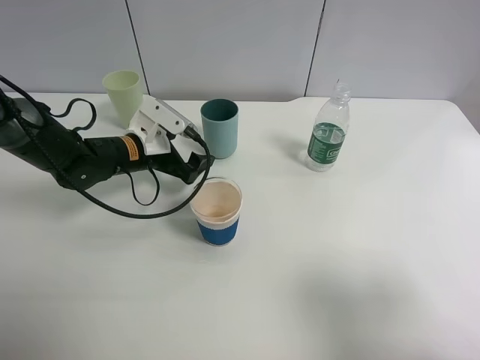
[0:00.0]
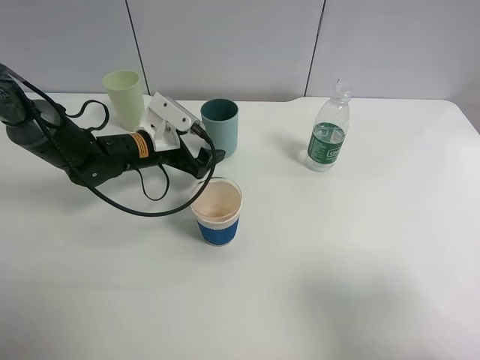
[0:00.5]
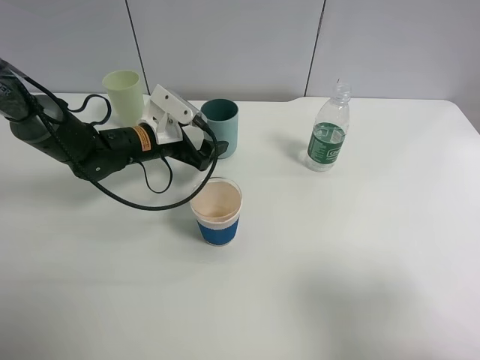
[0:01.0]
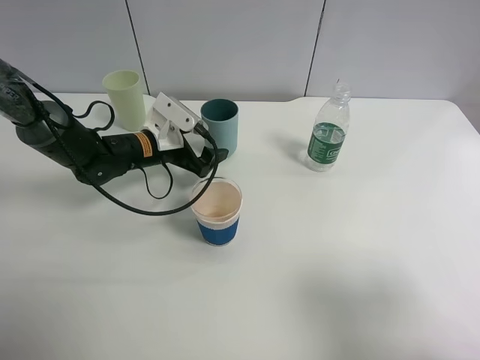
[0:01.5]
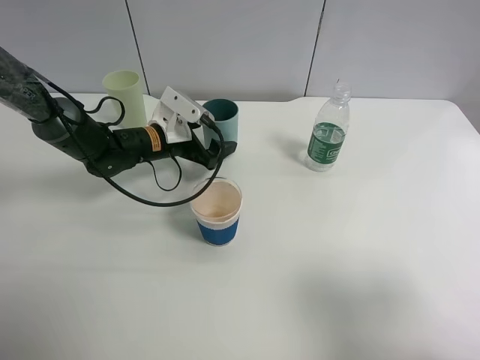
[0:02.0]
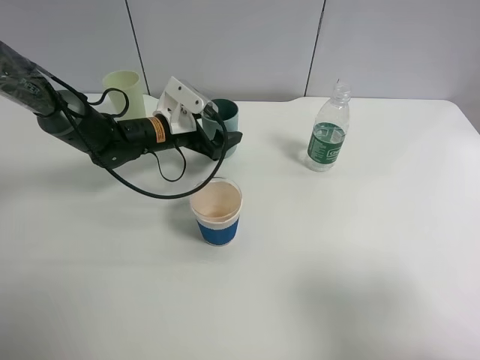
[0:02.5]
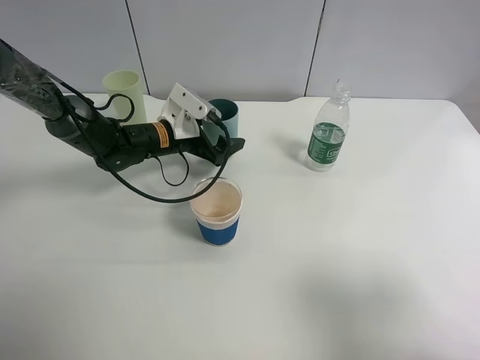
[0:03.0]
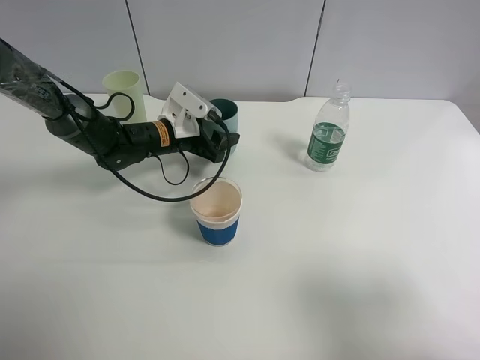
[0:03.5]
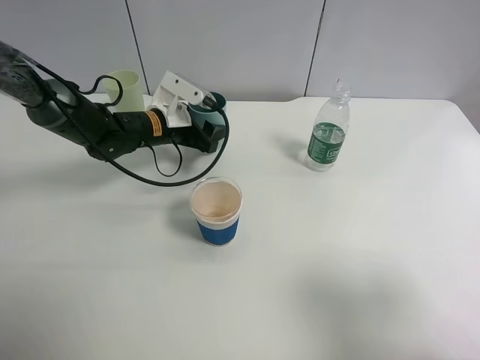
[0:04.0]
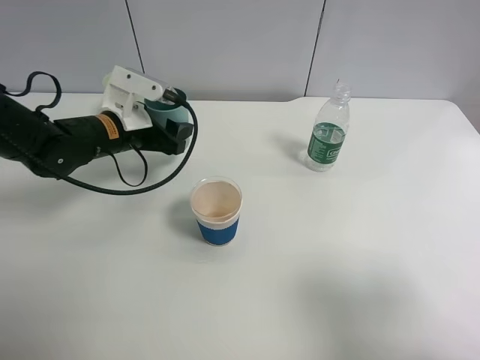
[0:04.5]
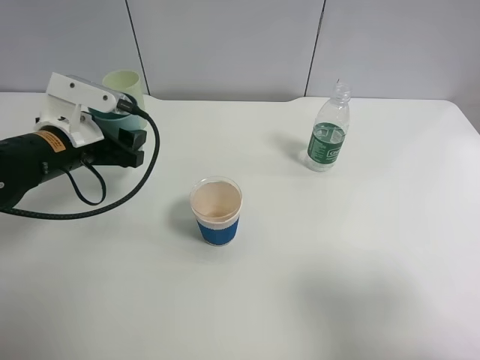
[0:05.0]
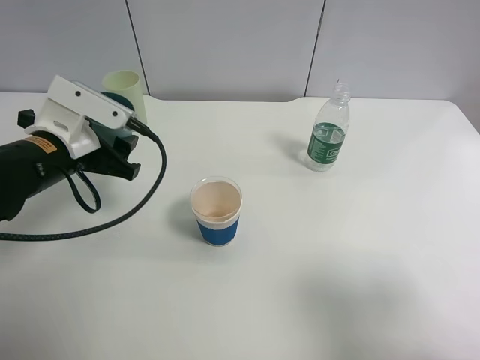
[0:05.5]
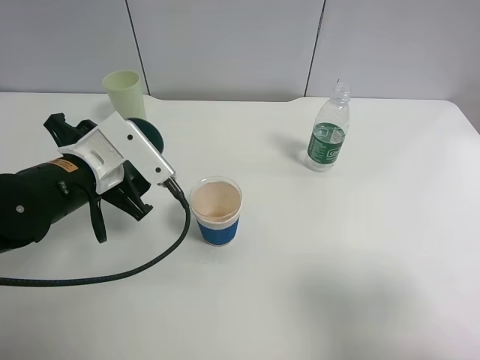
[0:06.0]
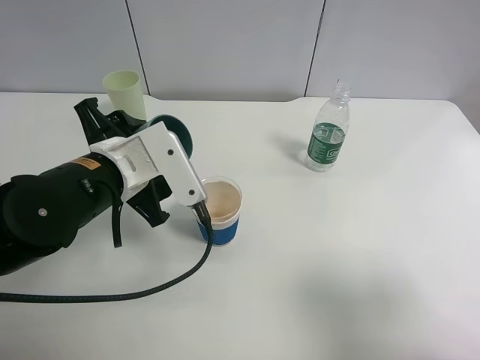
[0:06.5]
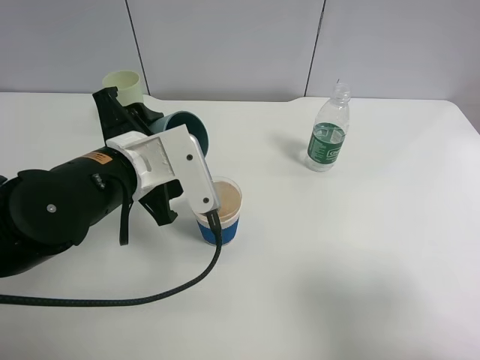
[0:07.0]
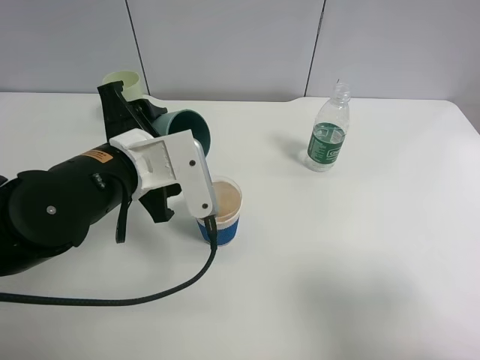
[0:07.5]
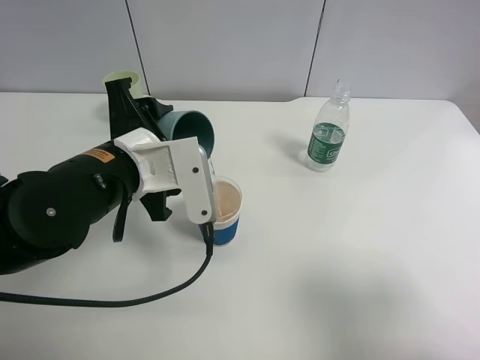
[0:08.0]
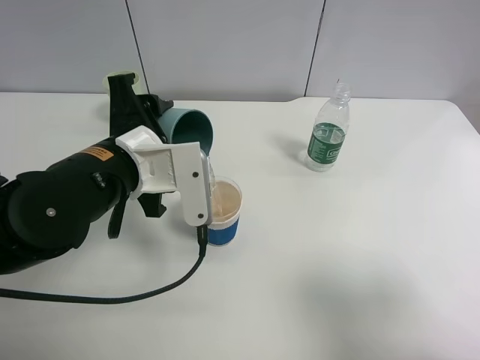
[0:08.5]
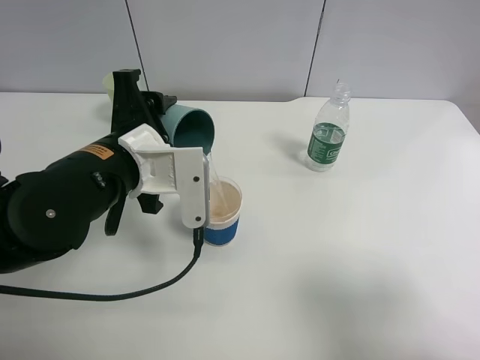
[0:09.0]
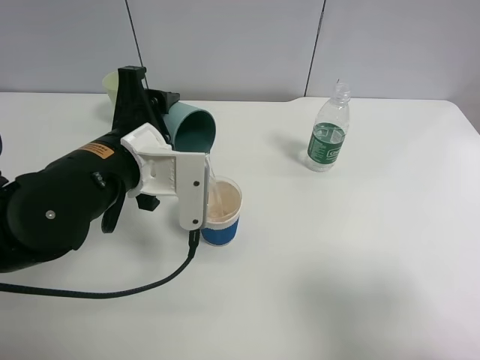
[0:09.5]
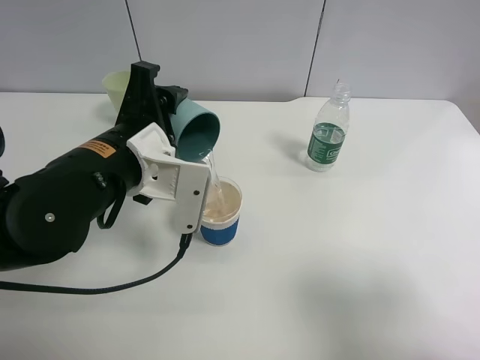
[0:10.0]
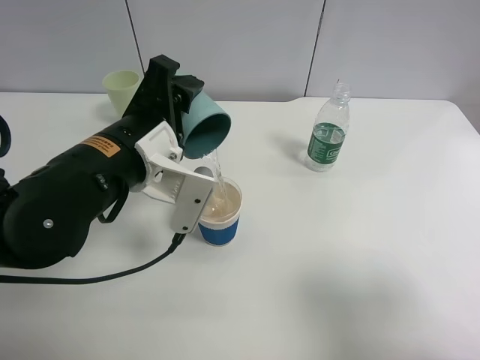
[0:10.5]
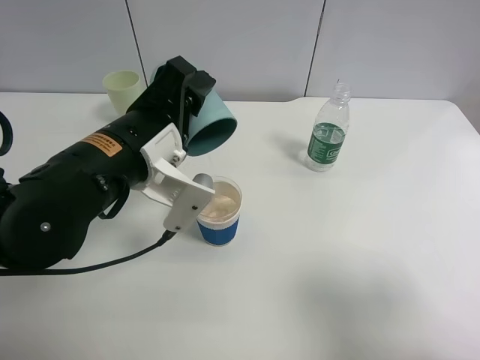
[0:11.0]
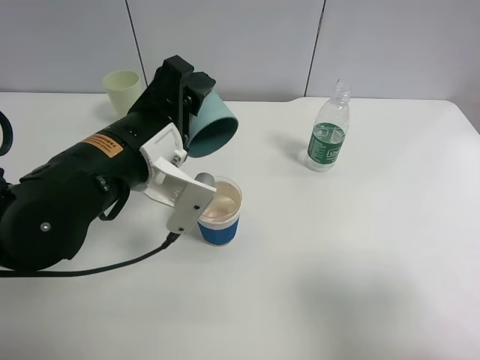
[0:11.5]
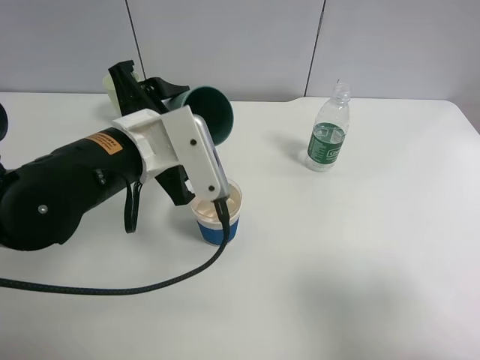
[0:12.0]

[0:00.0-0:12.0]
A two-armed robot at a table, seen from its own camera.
Task of the whole recording: use a clamp to hold the bottle of the drink, pour the beverage into a random cup, then clamp the cup containing the drink and pour the drink into another random cup.
Step, 0:00.0 to 0:04.0: Pick up the blue plastic cup bottle with left gripper.
Step, 0:04.5 to 0:11.5: Pour water into the paper cup with left gripper.
0:00.0 to 0:02.0: The grippers stay close to where they were, moving slightly.
0:02.0 to 0:04.0: The left gripper closes up.
0:04.0 to 0:06.0: The left gripper is displaced backward by about 20 cm.
0:06.0 to 0:08.0: The left gripper is displaced to the right by roughly 5 cm.

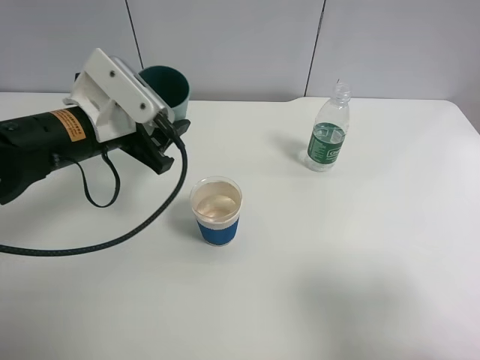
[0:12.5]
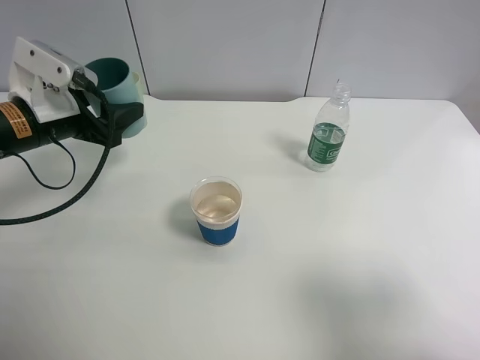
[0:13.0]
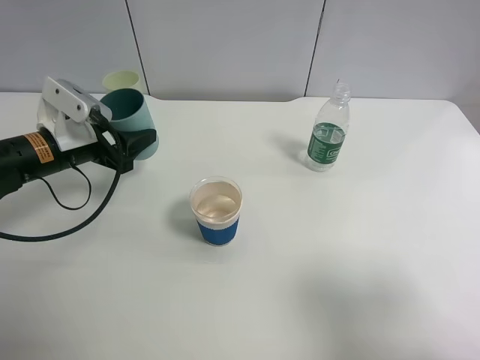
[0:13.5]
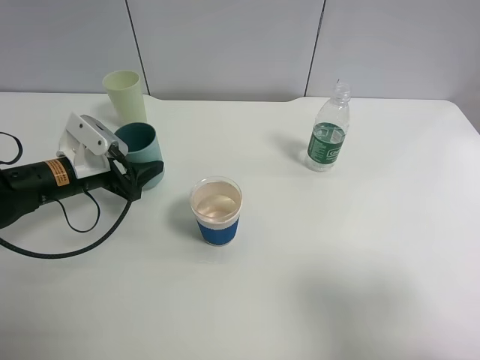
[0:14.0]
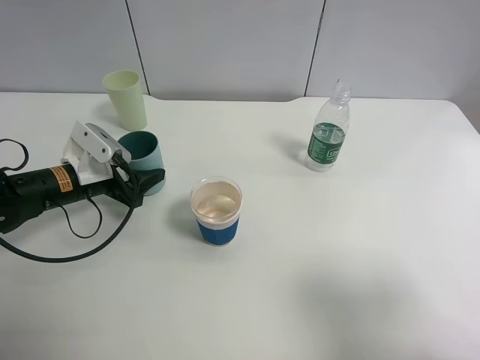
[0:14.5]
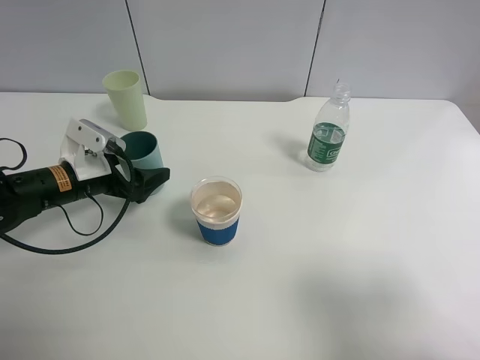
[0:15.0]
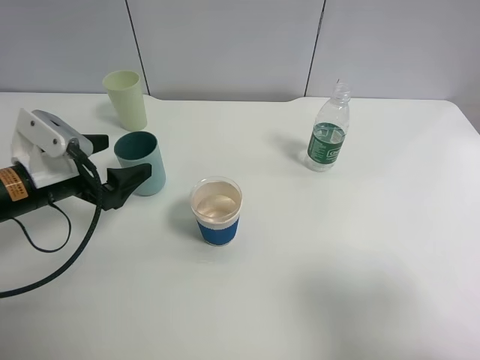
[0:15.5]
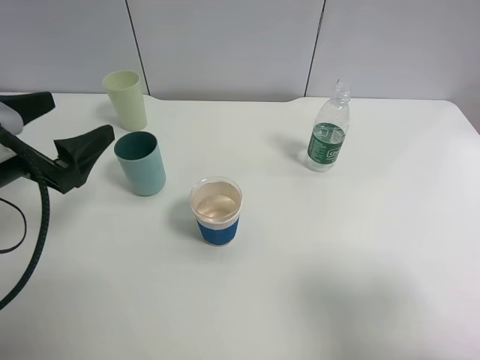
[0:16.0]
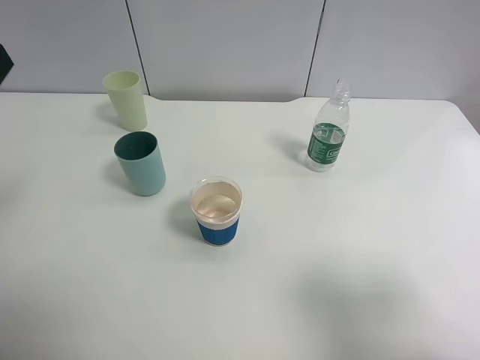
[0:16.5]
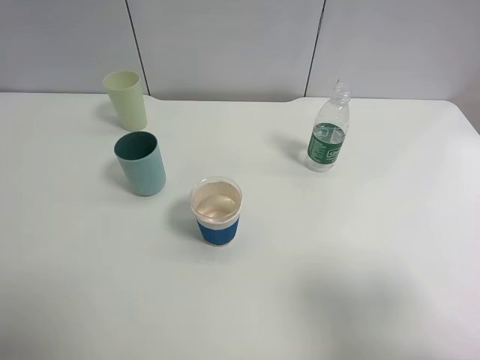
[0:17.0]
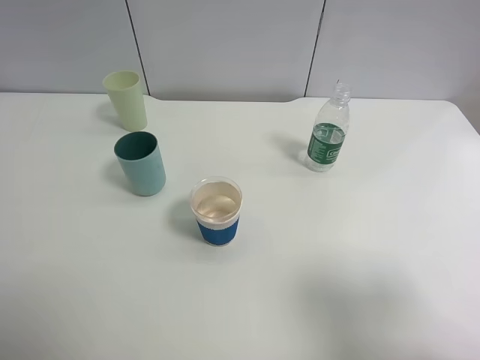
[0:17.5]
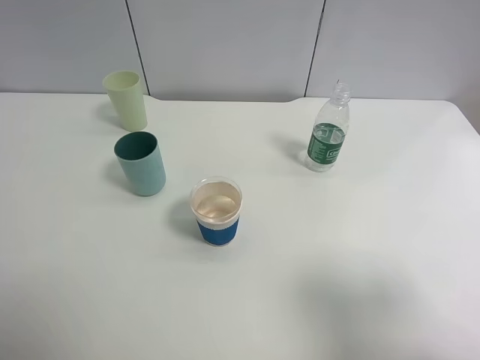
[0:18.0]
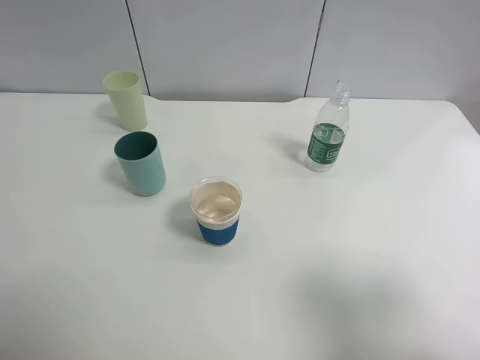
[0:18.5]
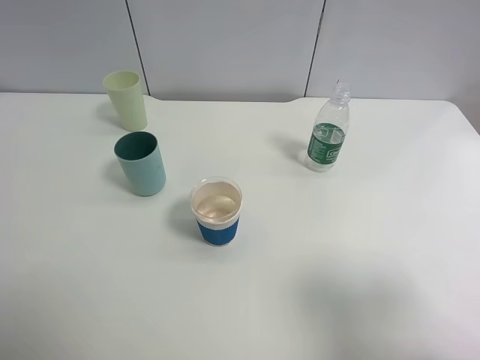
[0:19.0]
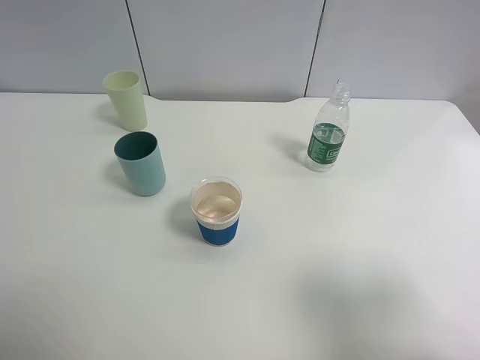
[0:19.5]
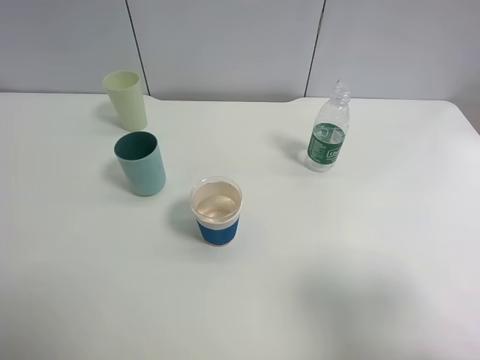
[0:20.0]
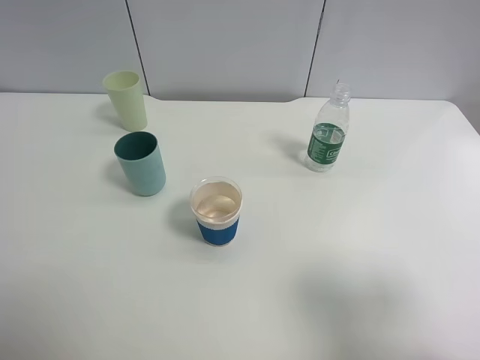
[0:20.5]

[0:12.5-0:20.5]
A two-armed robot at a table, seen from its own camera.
Task of the whole recording: use a clamp to hold the bottle of the drink, pour the beverage into a random cup, then clamp the cup containing the drink and pour the drink into another random cup.
Step, 0:12.5 to 0:15.0: Place the blue plastic cup on the table with left gripper.
0:12.5 to 0:14.5: The left gripper moves downward and to the left, roughly 15 cm.
0:14.5 to 0:16.5: The left gripper heads upward and backward, covering approximately 25 cm, and opens.
0:18.5 to 0:20.5: Neither gripper changes place.
